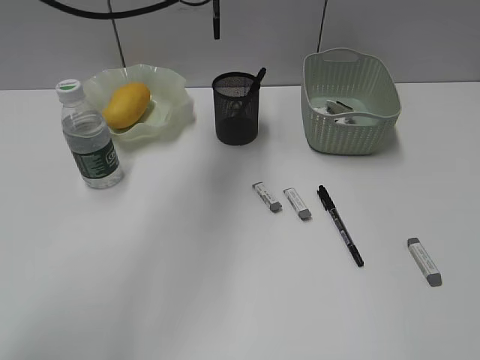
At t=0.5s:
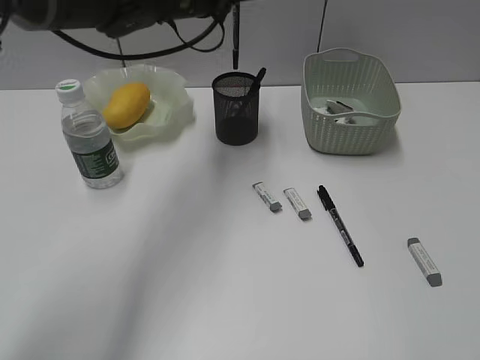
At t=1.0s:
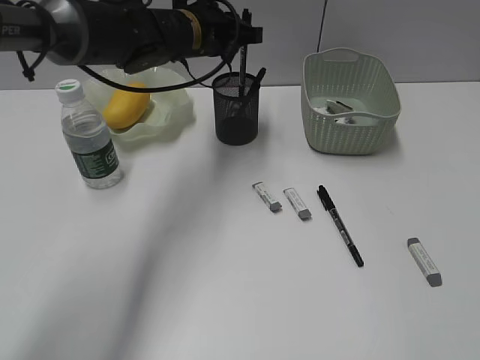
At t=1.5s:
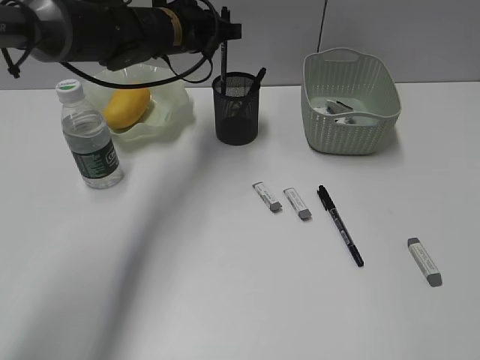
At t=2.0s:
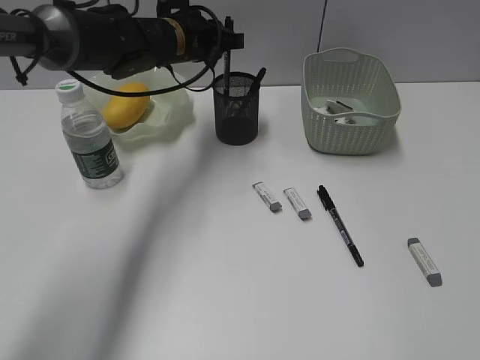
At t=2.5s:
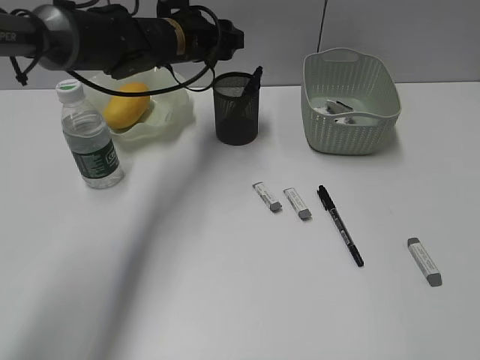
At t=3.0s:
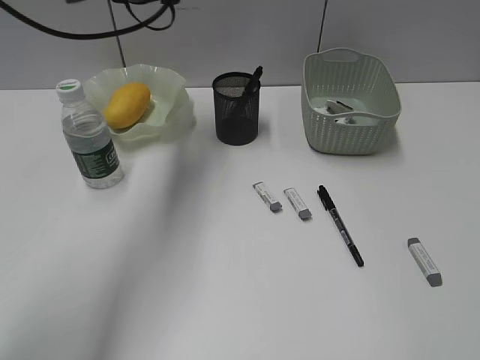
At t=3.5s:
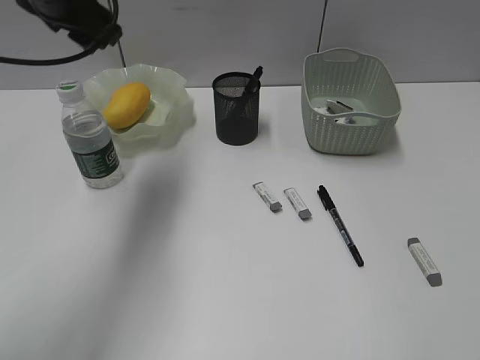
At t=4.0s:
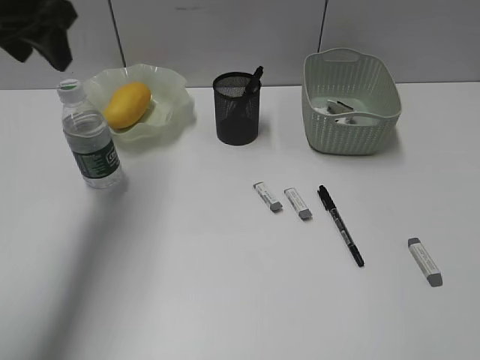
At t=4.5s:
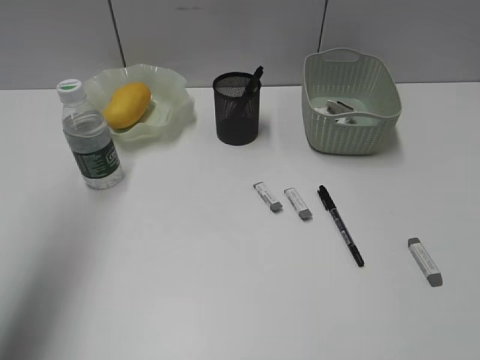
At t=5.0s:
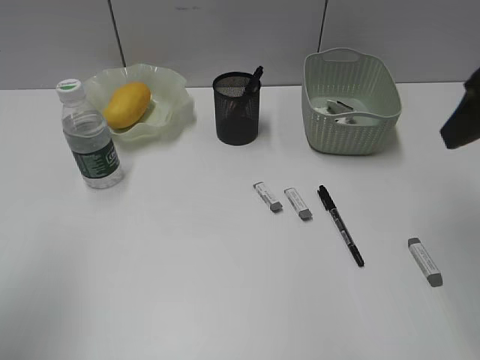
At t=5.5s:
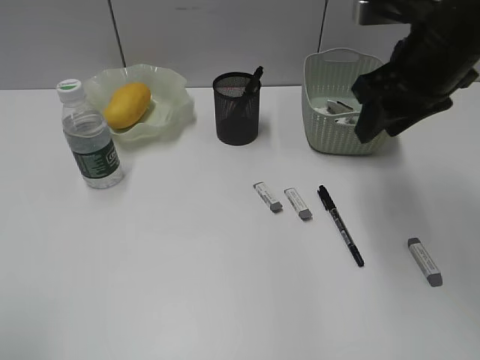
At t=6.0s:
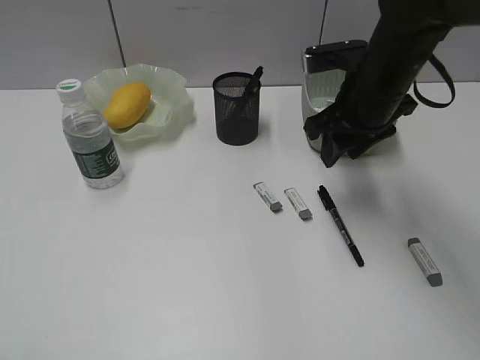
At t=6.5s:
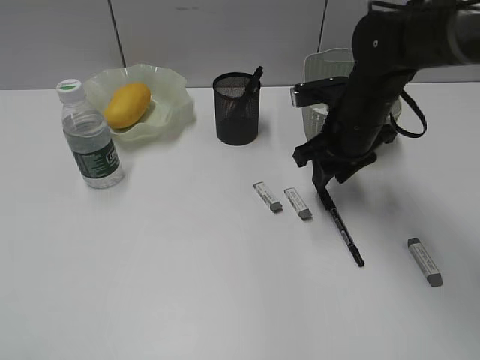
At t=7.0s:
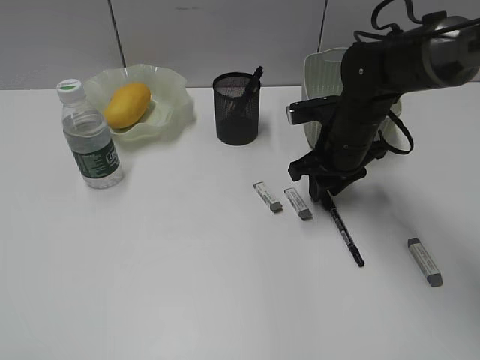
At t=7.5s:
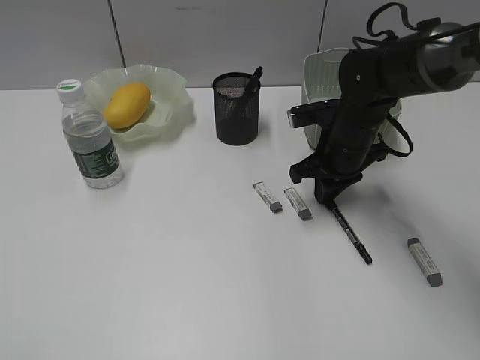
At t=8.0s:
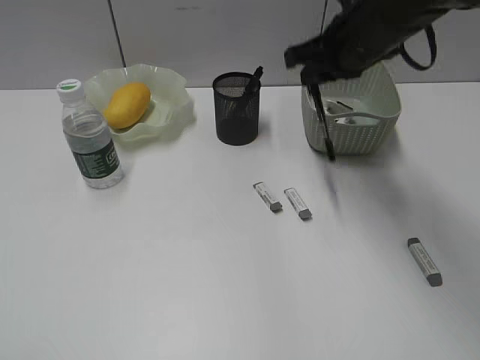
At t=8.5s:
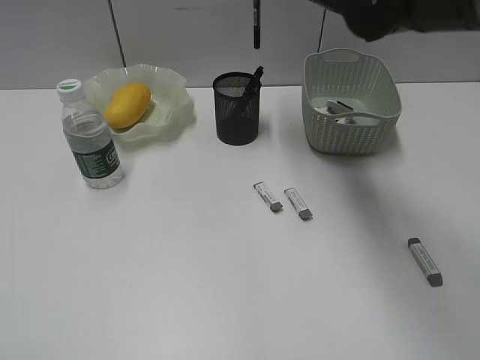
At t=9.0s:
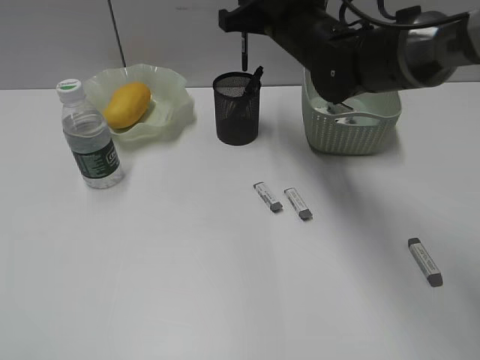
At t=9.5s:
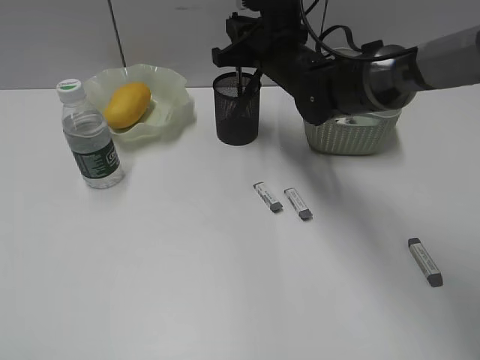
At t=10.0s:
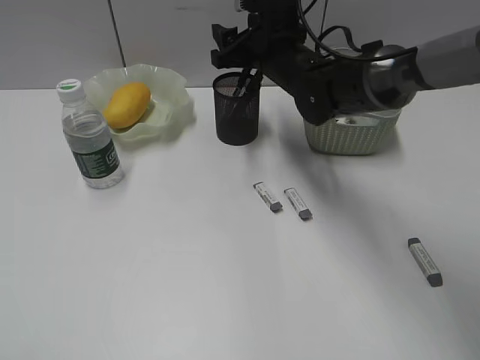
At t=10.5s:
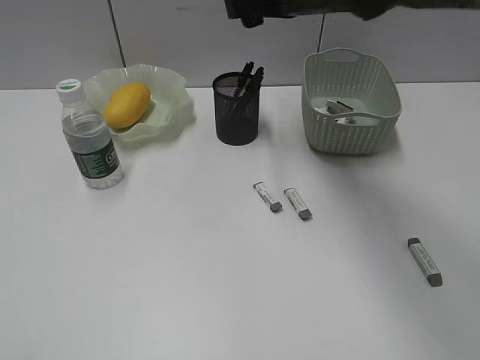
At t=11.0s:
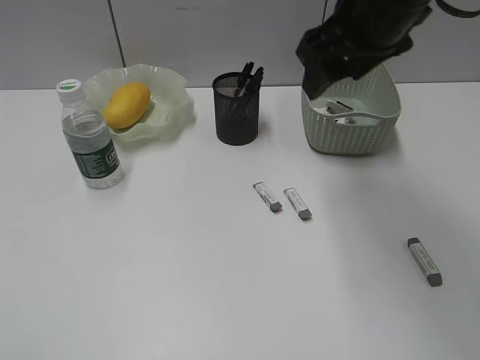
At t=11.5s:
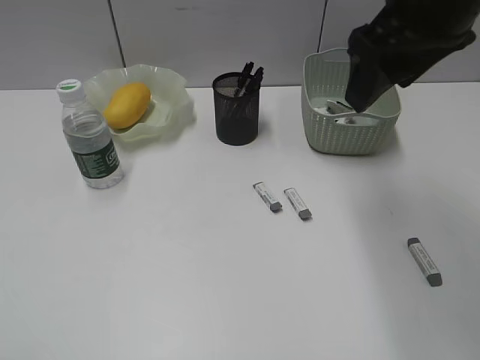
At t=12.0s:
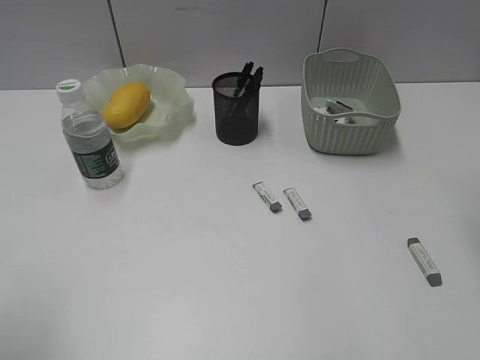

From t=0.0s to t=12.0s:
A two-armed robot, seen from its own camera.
Step, from t=0.0s to t=2.0s: Place the black pen in pen holder with left gripper.
Step, from t=2.5s to t=7.5s: Grasp the black pen with right gripper.
Step, from t=8.0s to t=10.0s: Place the black pen in pen holder with right gripper.
From t=0.0s to t=2.0s: The left gripper heads downward, covering roughly 10 cm.
From t=2.0s to t=4.0s: The left gripper travels to the left, upward and backward by roughly 25 cm, and opens its fingers, while the right gripper moves about 5 cm.
From t=4.0s to t=6.0s: The right gripper shifts some 35 cm forward and to the left; the left gripper heads backward, covering some 35 cm.
From t=6.0s to t=8.0s: The right gripper reaches some 10 cm downward, then returns, and closes its fingers.
From t=8.0s to t=10.0s: The right gripper is displaced to the left, downward and forward by about 10 cm, and opens.
From t=10.0s to t=12.0s: The left gripper shifts about 10 cm forward. The right gripper goes roughly 35 cm to the right, backward and upward.

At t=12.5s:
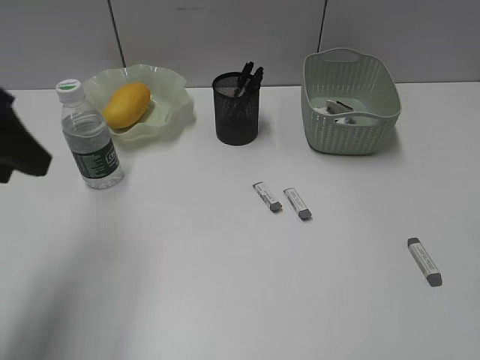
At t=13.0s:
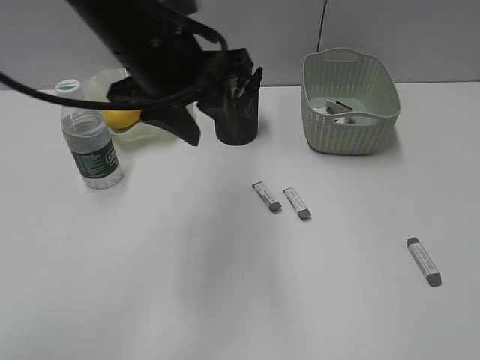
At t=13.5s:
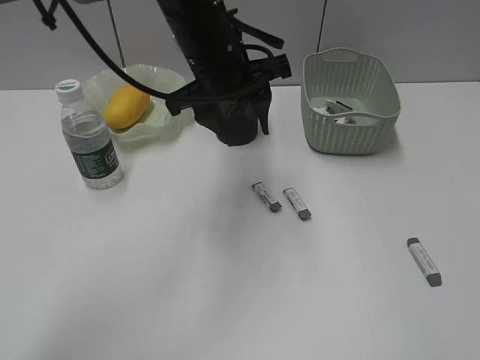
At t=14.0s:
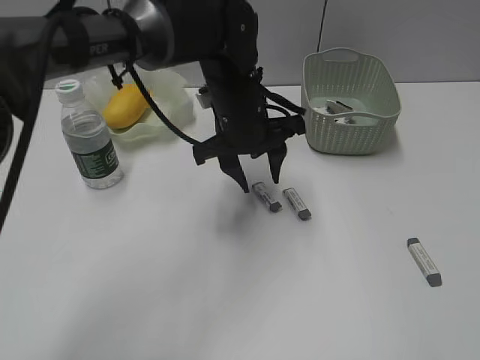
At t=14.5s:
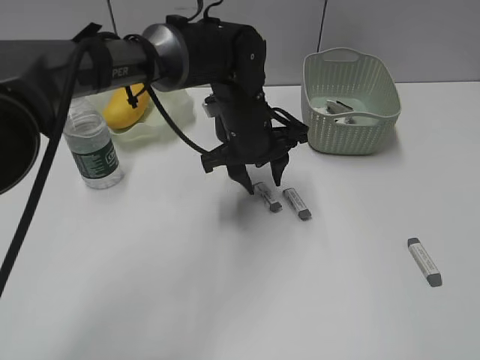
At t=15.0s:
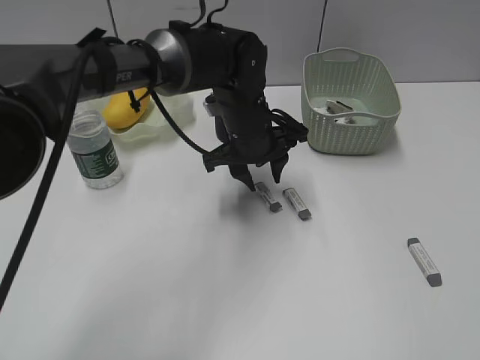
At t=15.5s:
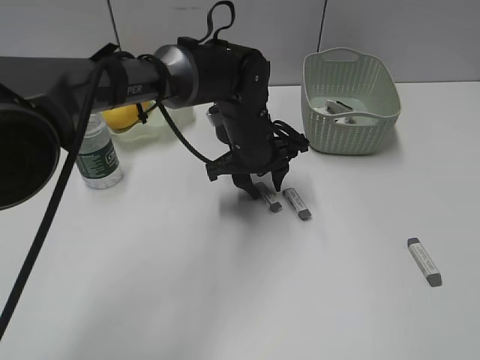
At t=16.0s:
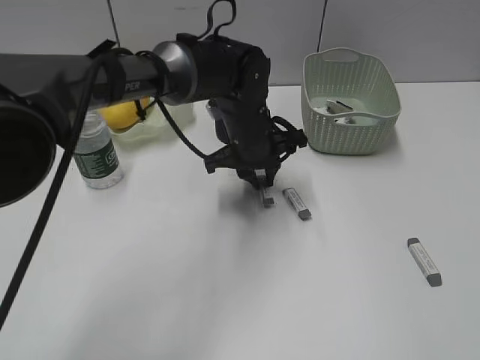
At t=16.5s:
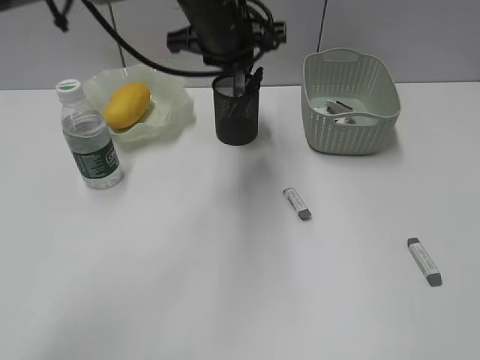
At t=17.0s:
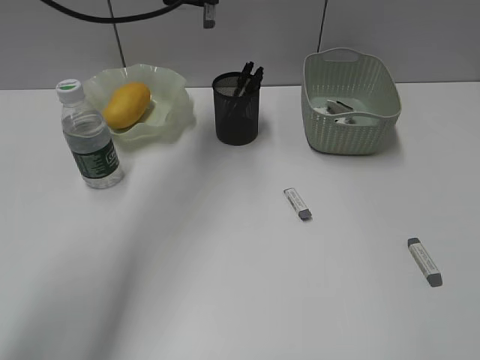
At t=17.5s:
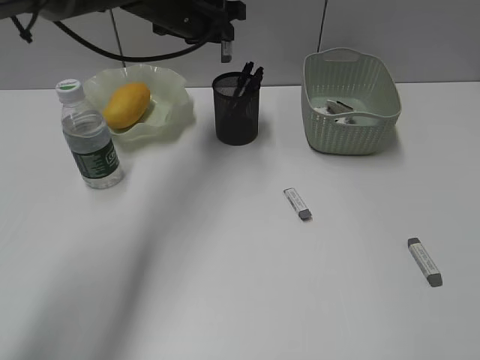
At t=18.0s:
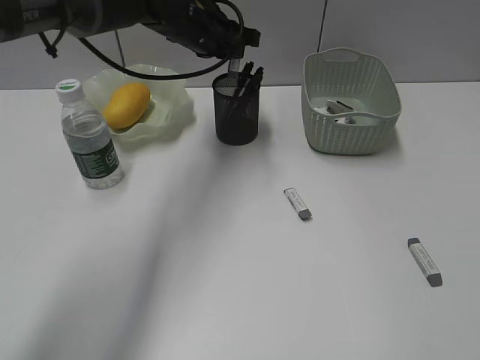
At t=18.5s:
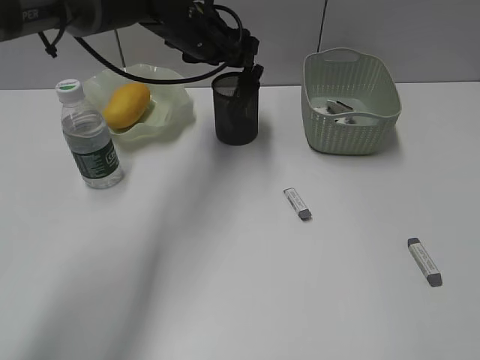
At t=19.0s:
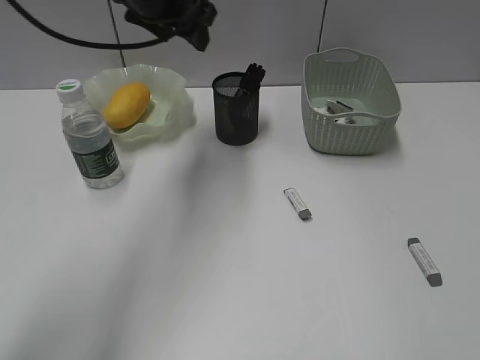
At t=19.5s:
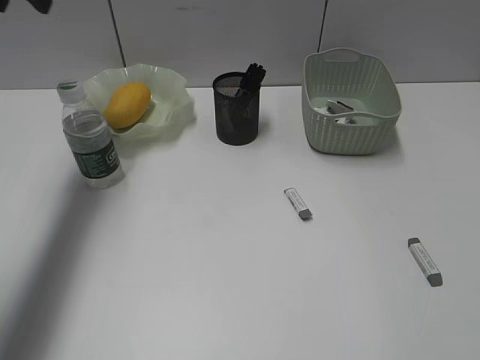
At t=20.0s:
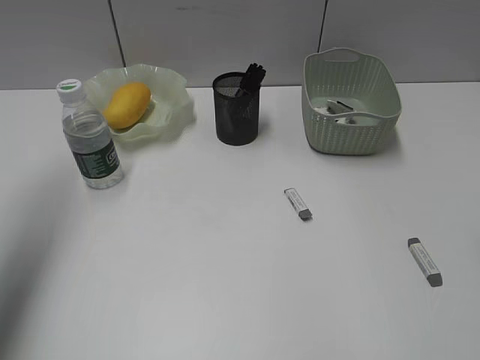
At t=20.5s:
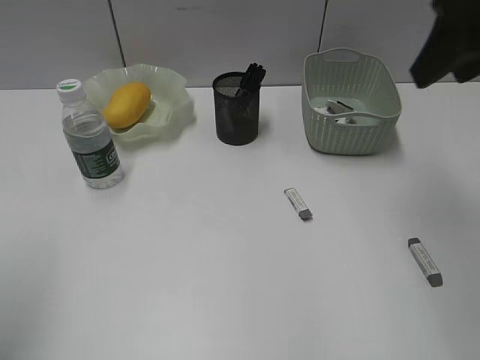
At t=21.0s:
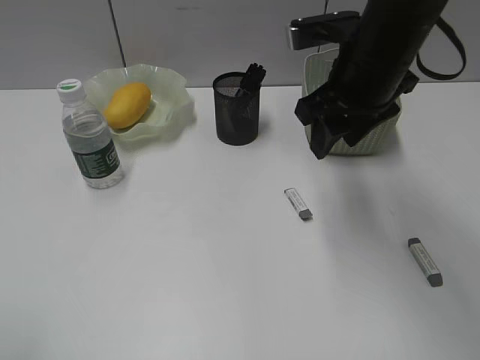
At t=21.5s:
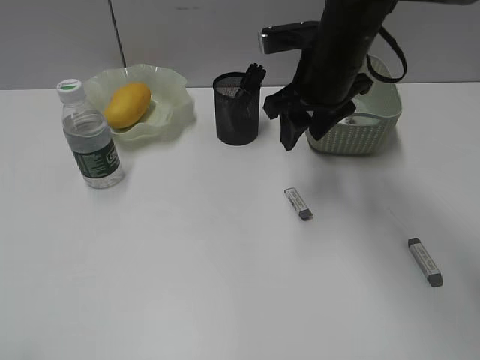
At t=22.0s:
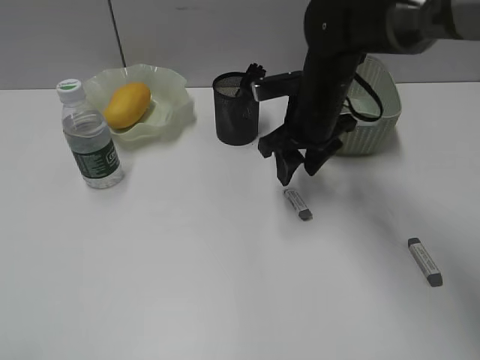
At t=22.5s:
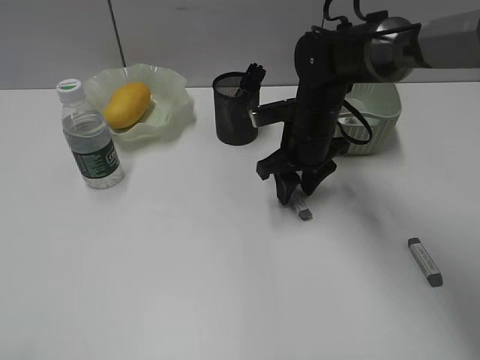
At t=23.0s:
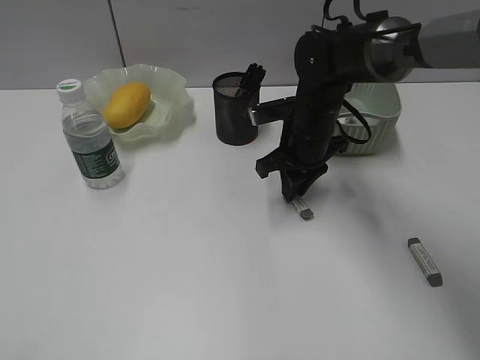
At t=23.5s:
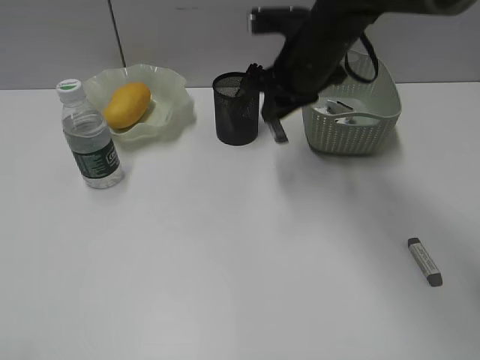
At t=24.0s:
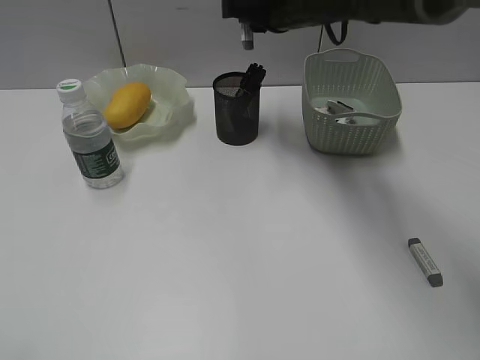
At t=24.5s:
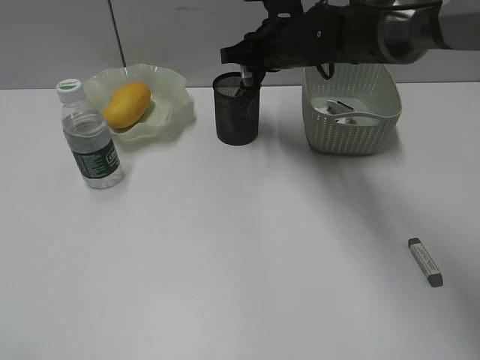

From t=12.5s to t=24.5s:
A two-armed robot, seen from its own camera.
Step, from t=12.5s to t=16.0s: Grasp the eraser with left gripper.
Step, from t=16.5s to t=18.5s: Place the eraser in pen holder with left gripper.
Step, from t=19.0s to t=23.0s: Grasp the eraser with right gripper.
From t=12.5s to t=14.5s: The left gripper travels to the right, downward and forward by about 35 cm; the right gripper goes about 15 cm backward.
From t=14.5s to t=16.5s: The left gripper travels upward by approximately 15 cm, and closes up.
From t=16.5s to t=18.5s: The left gripper travels forward and downward by some 10 cm, and opens its fingers.
From t=18.5s to t=20.5s: The left gripper is displaced backward and to the left by approximately 40 cm. The right gripper heads forward, covering some 30 cm.
From t=20.5s to t=22.5s: The left gripper moves backward, some 15 cm; the right gripper shifts some 30 cm downward, forward and to the left.
From t=22.5s to t=24.5s: The right gripper travels upward and forward by approximately 10 cm, and closes its fingers.

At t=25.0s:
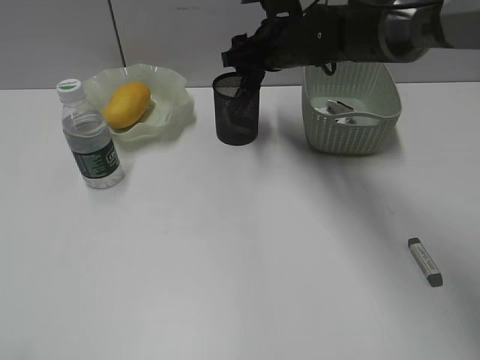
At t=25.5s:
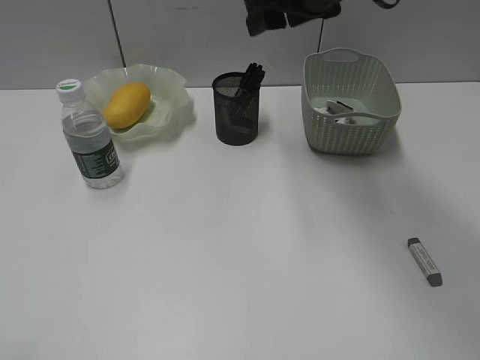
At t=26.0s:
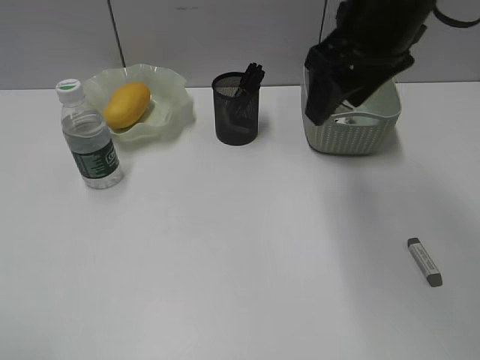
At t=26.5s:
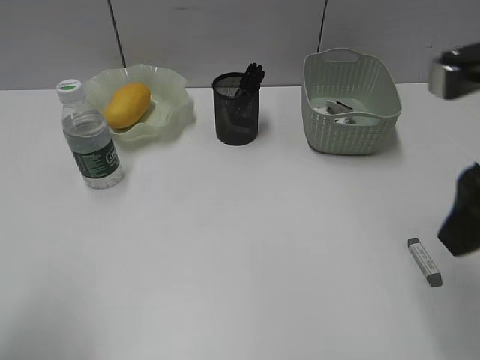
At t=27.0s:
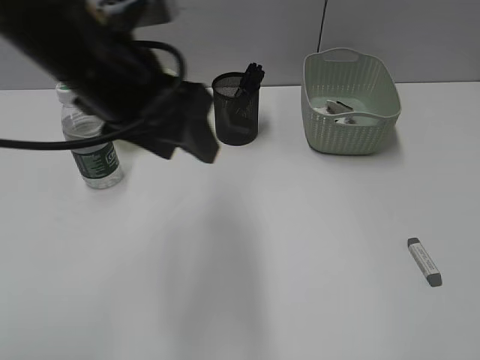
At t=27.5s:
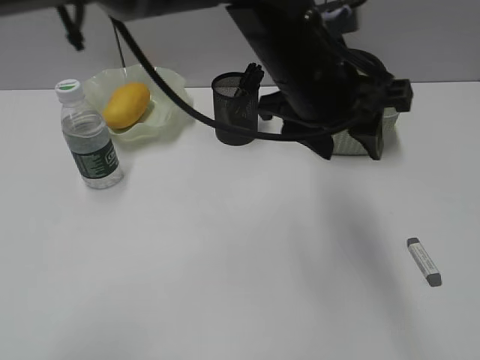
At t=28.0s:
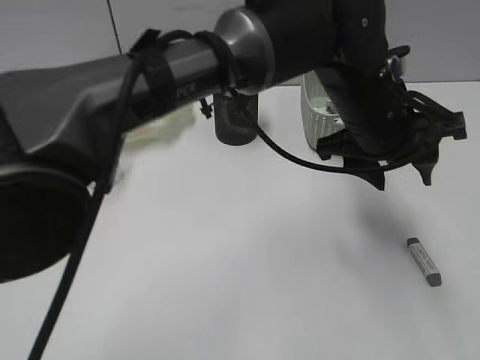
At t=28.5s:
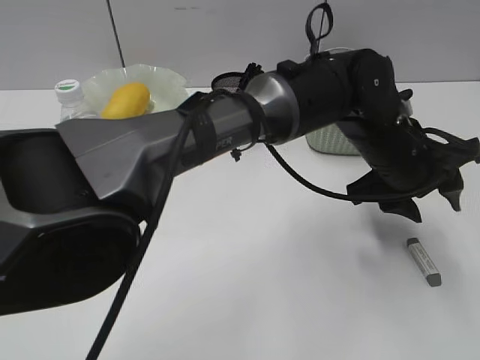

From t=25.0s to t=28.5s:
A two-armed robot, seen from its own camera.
From t=25.0s to t=27.0s: The right gripper goes roughly 50 cm backward and to the right; the left gripper heads forward and to the right, covering some 35 cm.
From t=27.0s to t=28.5s: The right gripper is displaced backward by about 5 cm. The left gripper moves to the right and downward, approximately 30 cm.
